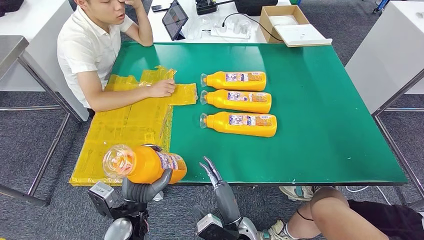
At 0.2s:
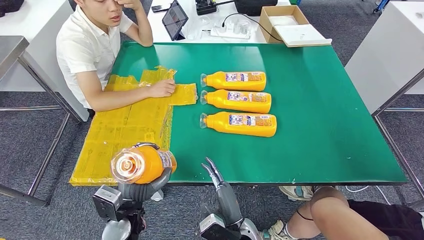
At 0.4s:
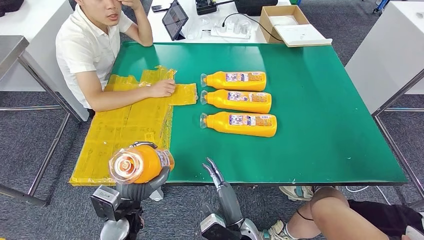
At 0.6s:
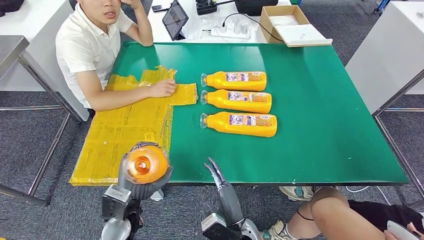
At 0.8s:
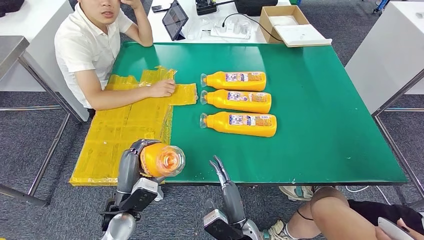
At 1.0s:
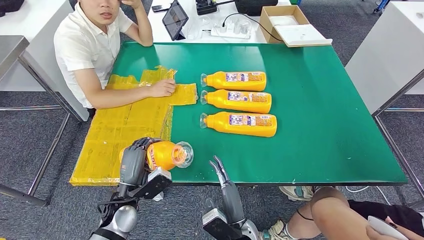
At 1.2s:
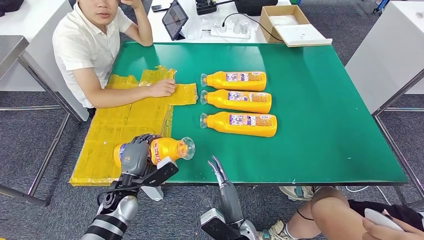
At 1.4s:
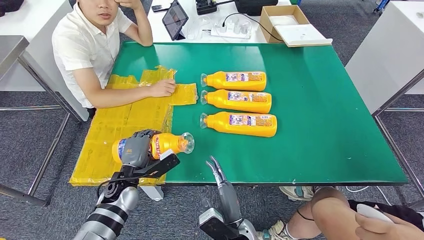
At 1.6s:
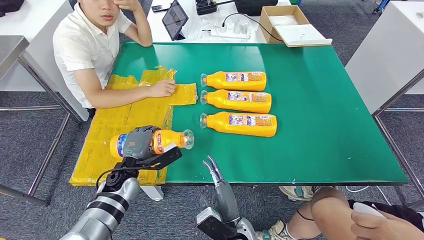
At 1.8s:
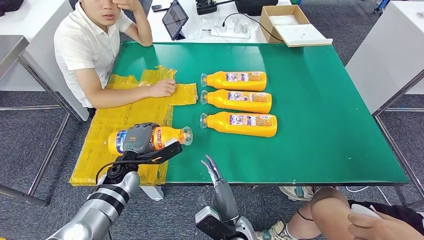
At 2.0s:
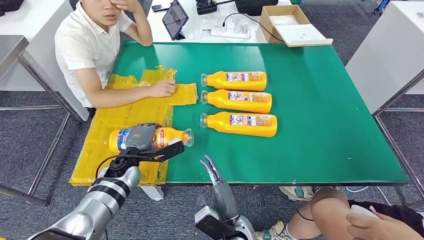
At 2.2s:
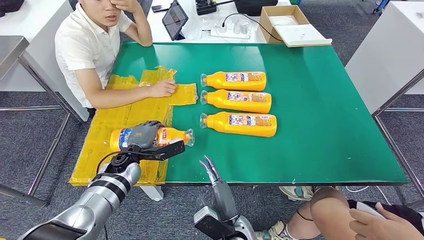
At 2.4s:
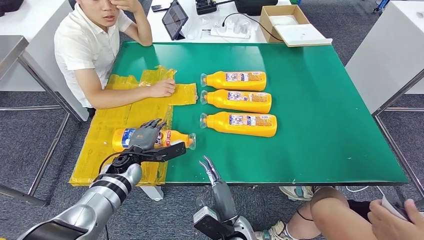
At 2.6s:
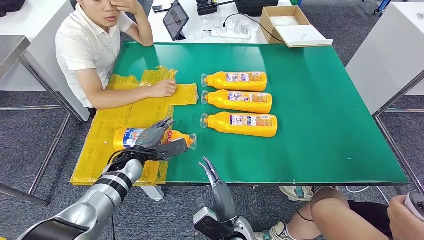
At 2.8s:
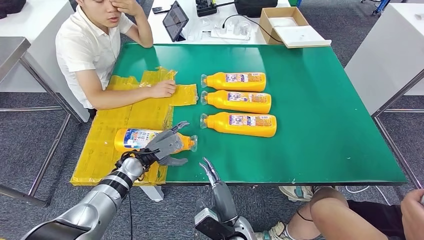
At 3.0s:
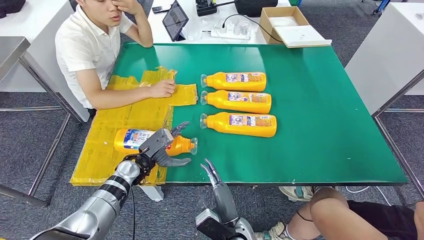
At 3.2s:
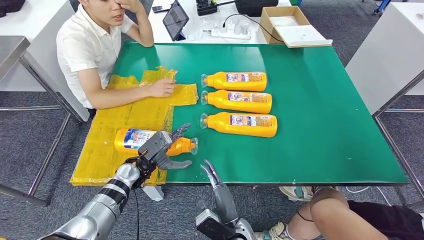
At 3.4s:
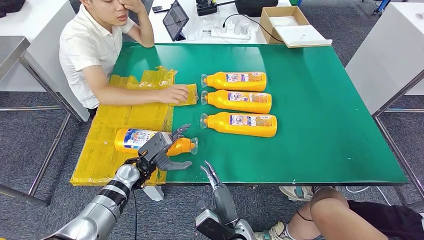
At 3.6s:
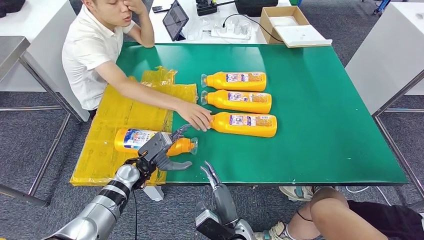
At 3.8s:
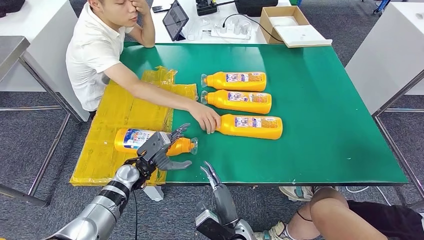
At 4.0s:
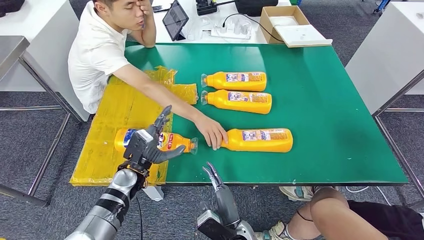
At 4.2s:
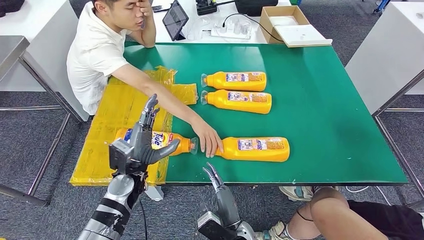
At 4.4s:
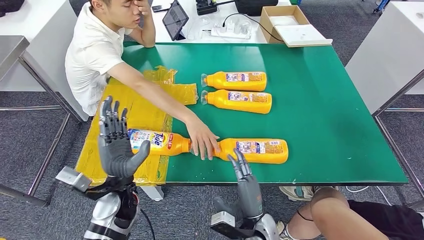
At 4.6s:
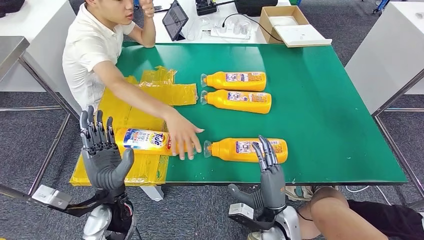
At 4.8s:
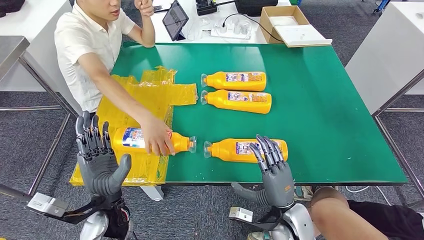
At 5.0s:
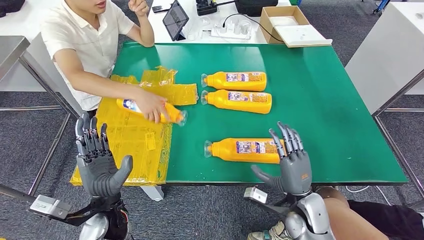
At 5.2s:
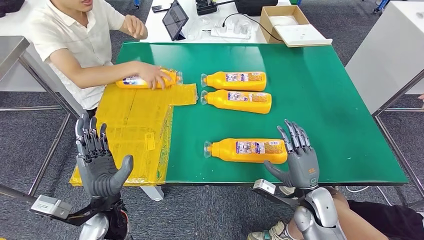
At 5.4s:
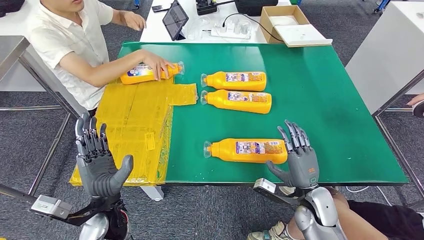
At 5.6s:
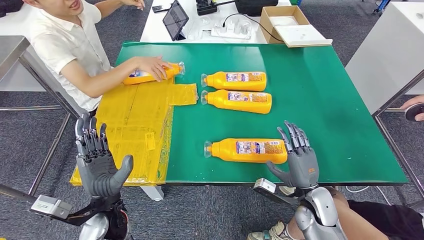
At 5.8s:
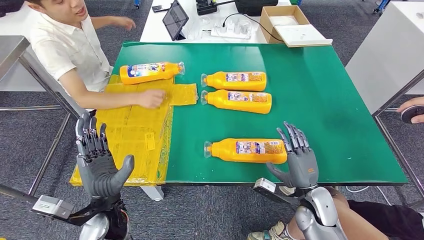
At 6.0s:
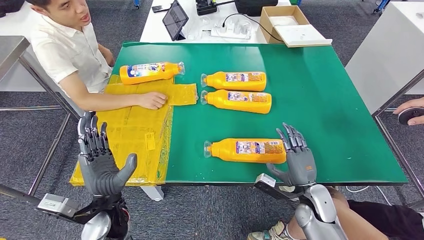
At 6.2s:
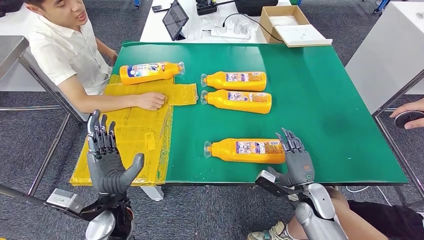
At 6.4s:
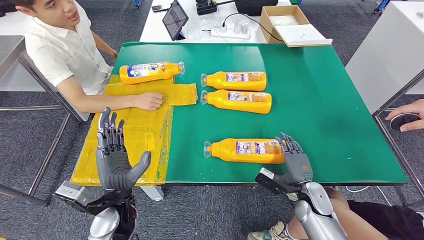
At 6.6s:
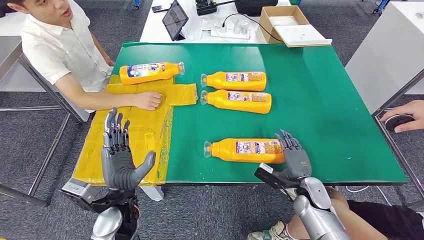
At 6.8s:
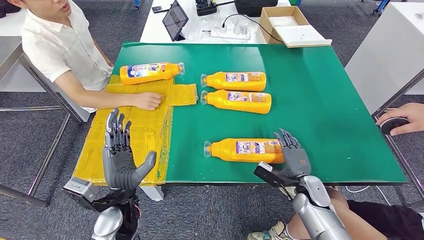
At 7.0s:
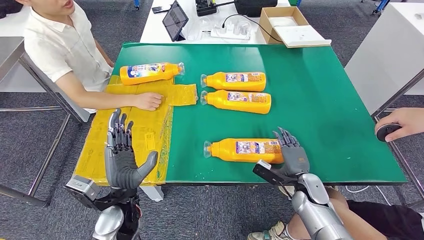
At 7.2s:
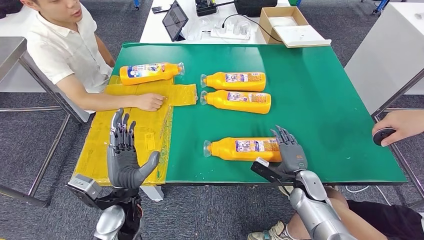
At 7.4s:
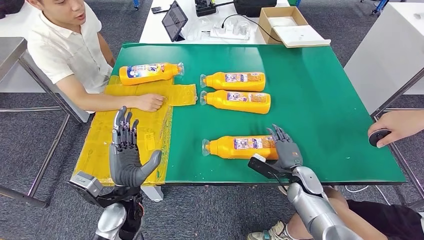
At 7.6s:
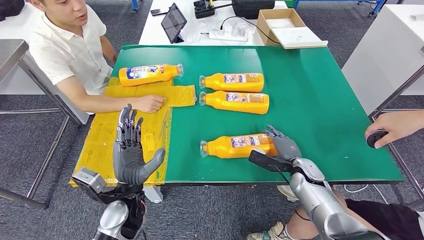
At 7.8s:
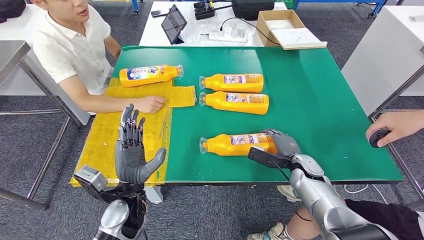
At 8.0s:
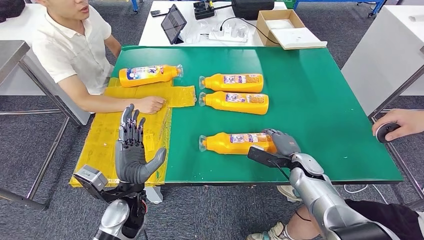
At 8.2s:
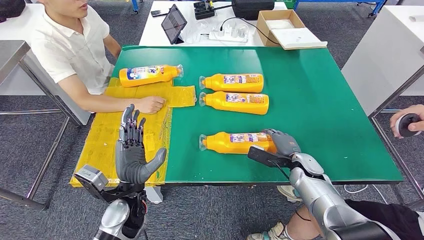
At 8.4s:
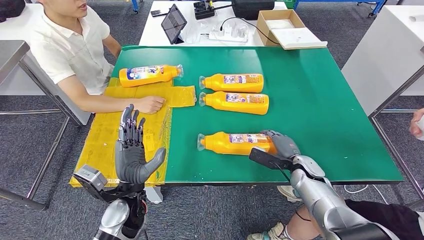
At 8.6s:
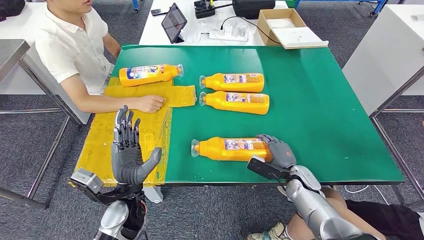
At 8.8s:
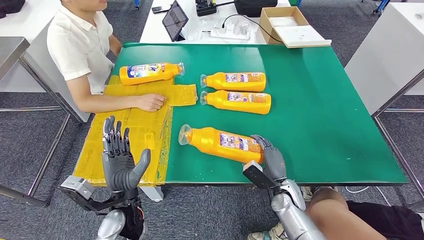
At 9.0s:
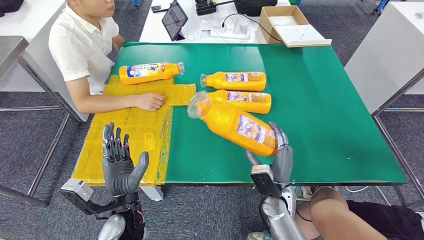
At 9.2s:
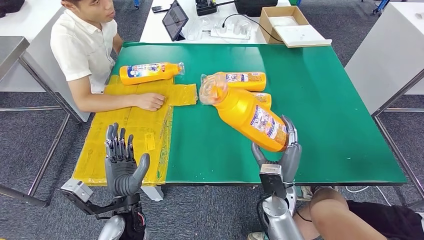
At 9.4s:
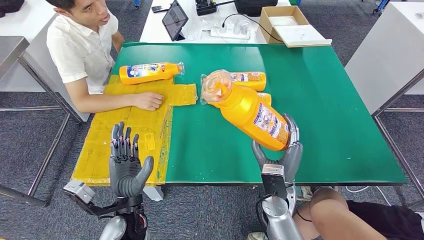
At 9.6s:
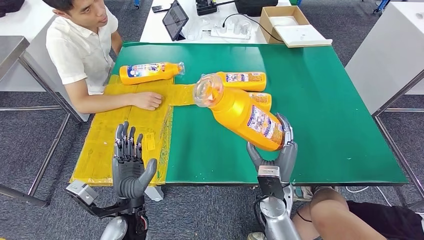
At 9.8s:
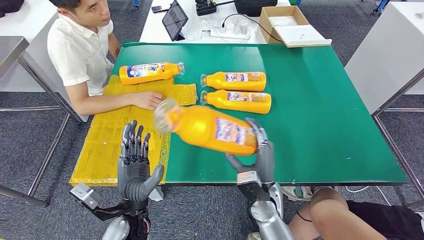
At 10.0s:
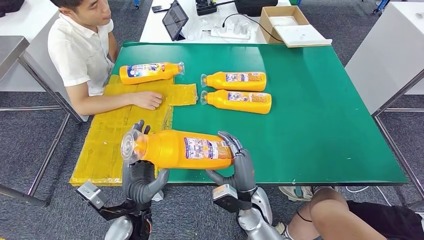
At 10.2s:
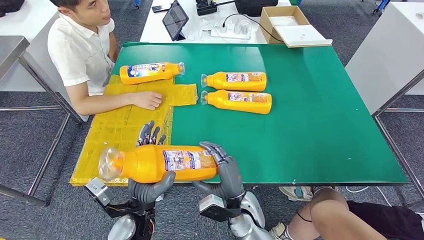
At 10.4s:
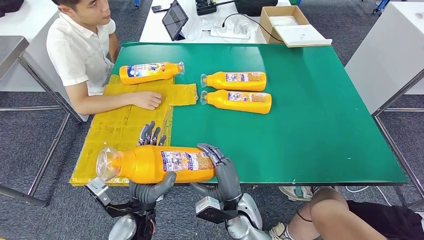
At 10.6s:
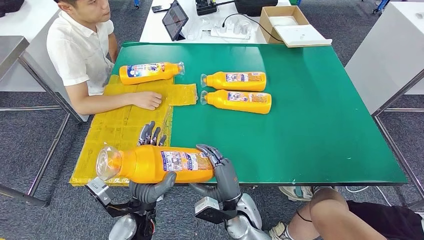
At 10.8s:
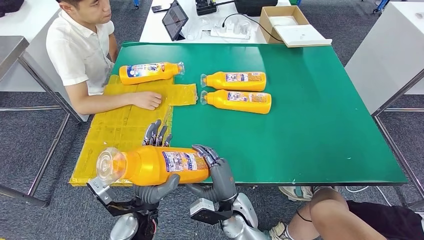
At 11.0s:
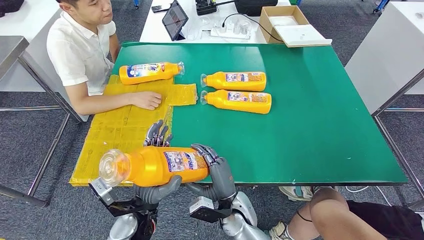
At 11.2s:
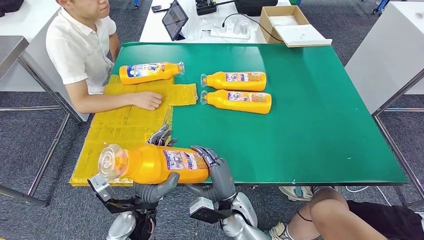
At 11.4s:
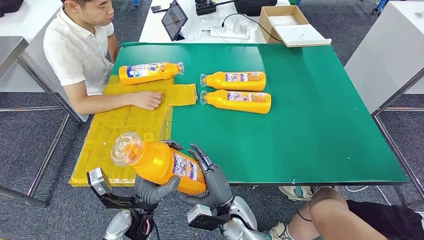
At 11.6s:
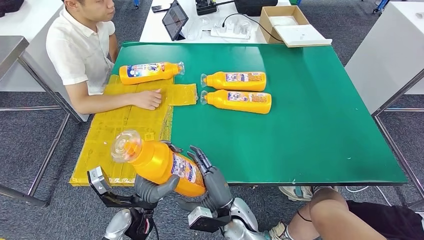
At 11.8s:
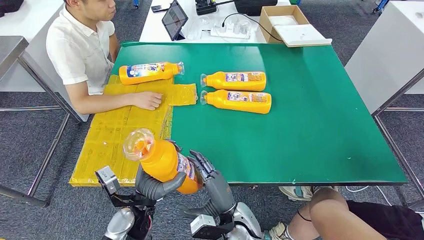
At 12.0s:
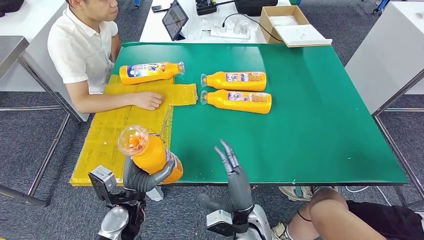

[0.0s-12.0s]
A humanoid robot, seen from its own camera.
Step, 0.0s to 2.4s: Flip the fast-moving consumer goods bottle to the front side.
Step, 2.6s to 10.0s: Pick up the fast-moving consumer goods bottle from the table.
0.0s to 1.6s: The left hand shifts approximately 10 cm forward.
9.0s to 10.4s: The right hand travels to the left by some 10 cm.

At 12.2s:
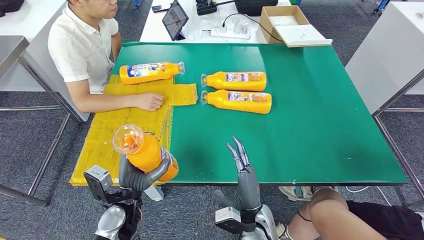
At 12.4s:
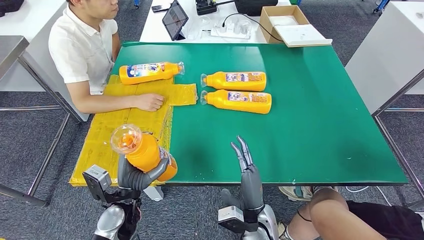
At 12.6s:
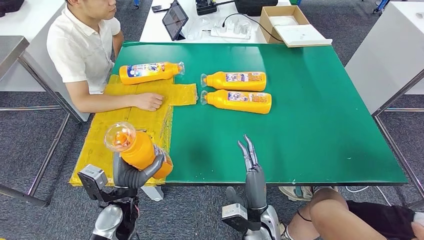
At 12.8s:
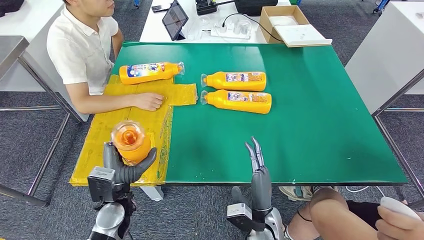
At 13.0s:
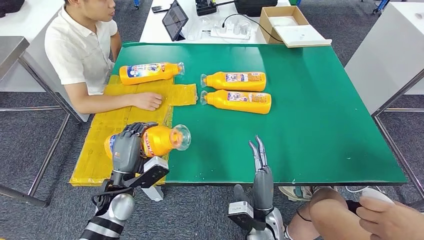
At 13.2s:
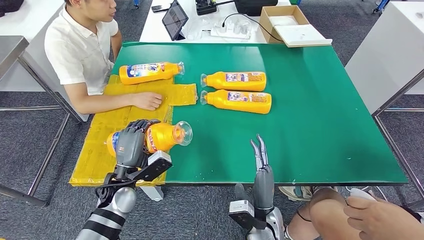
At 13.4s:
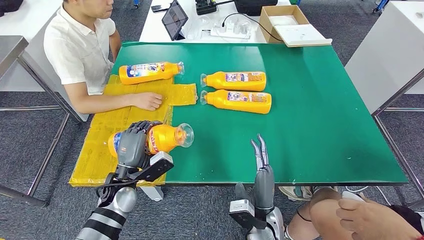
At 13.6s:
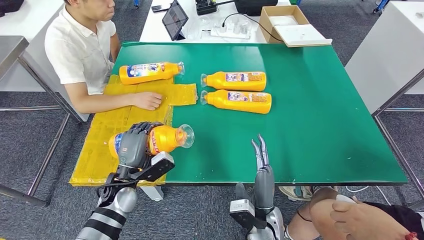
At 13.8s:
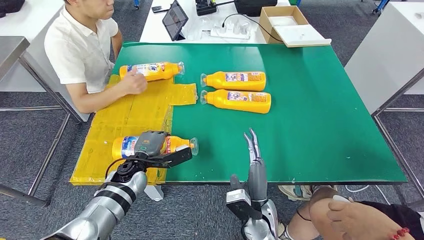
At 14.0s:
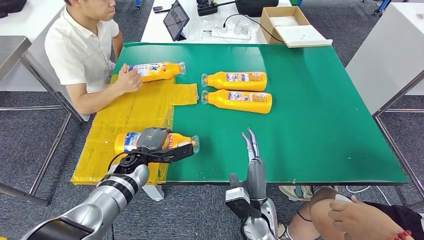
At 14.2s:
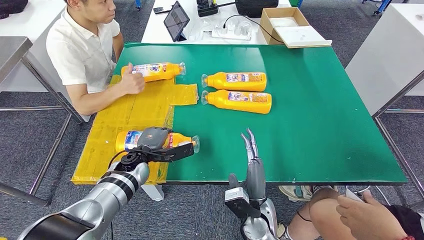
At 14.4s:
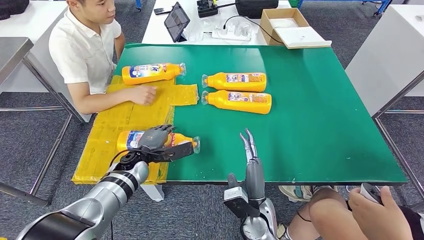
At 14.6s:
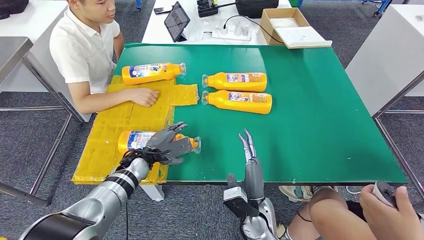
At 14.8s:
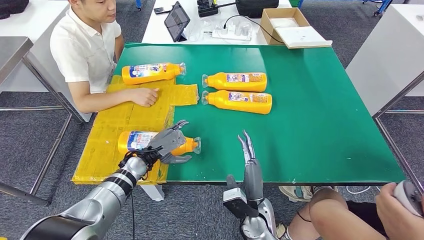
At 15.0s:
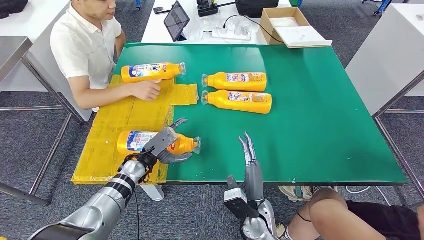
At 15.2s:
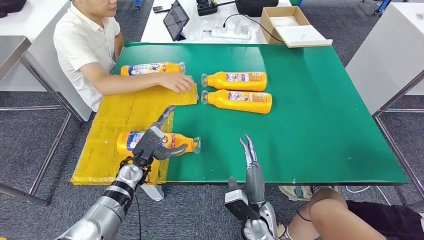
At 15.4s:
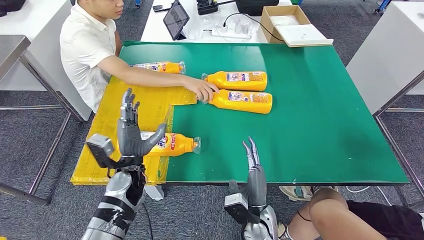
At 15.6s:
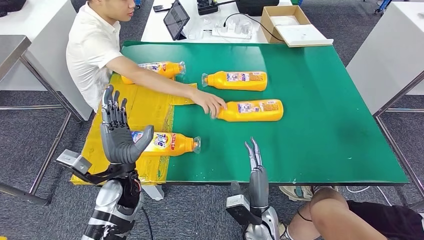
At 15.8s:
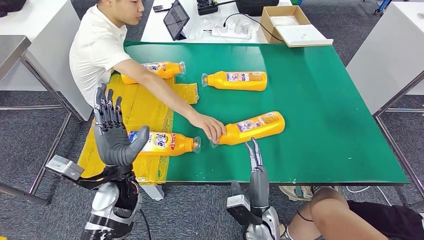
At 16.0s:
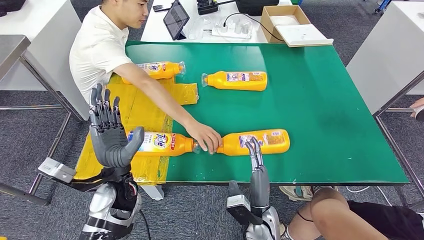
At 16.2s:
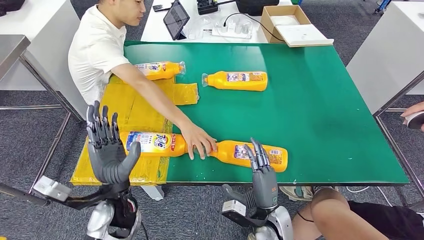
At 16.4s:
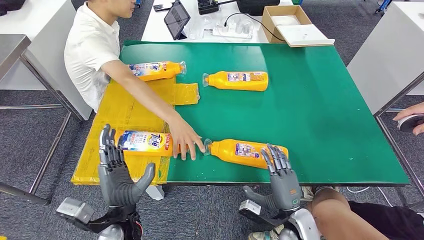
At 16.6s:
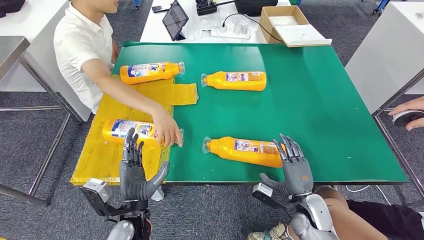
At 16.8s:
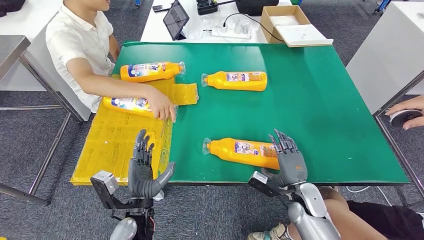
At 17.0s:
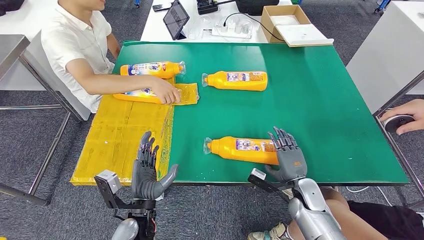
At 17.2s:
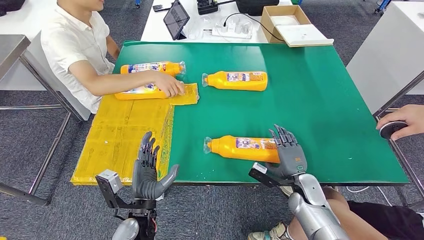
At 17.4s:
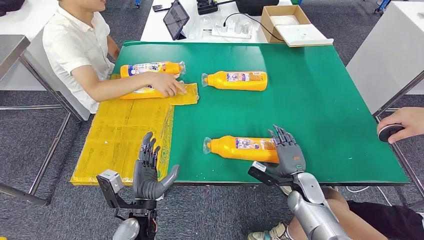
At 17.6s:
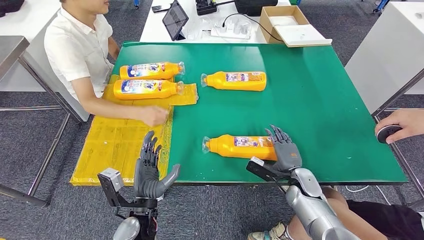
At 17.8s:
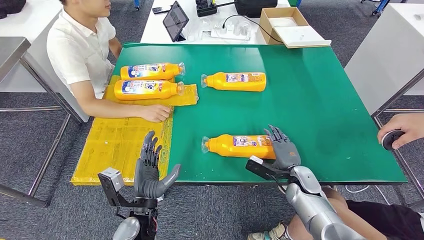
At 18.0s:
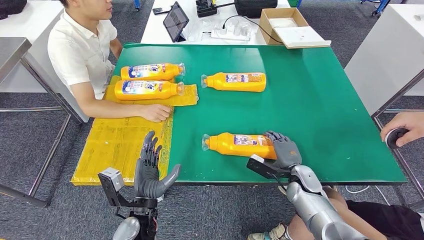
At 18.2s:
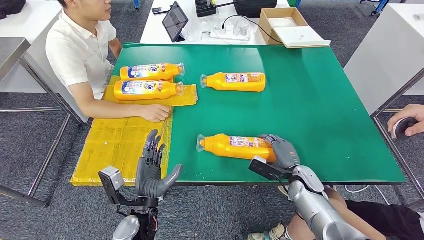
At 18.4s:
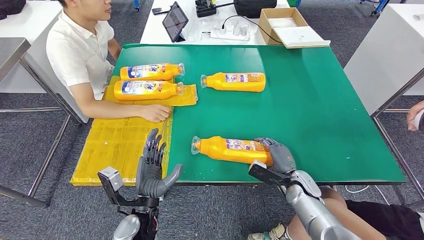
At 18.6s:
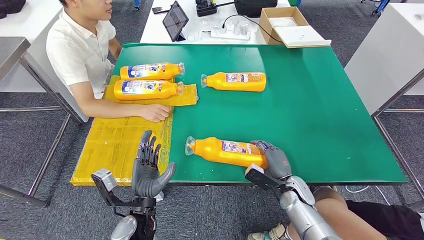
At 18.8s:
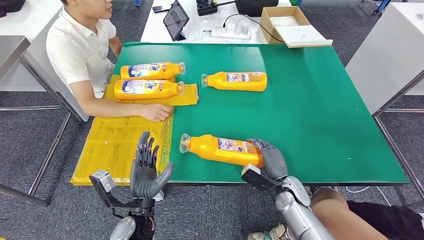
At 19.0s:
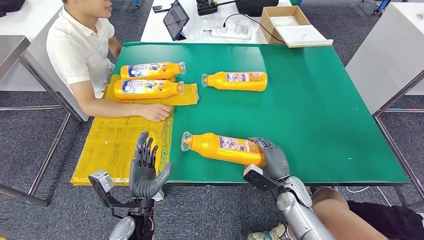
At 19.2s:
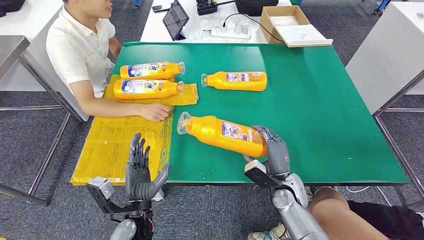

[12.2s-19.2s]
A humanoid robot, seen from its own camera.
Step, 12.2s to 14.8s: Flip the fast-moving consumer goods bottle to the front side.
12.2s to 13.6s: The left hand shifts roughly 5 cm forward.
17.8s to 19.2s: The right hand shifts roughly 5 cm to the left.
